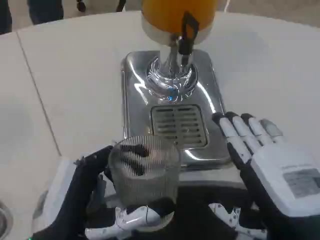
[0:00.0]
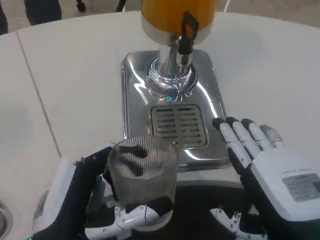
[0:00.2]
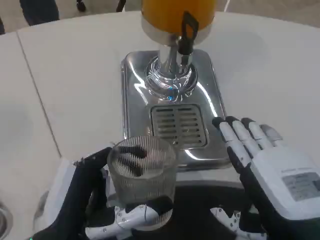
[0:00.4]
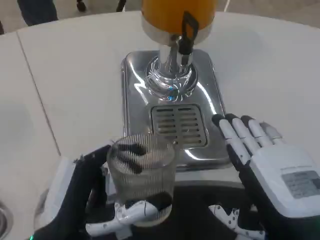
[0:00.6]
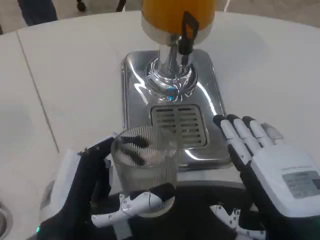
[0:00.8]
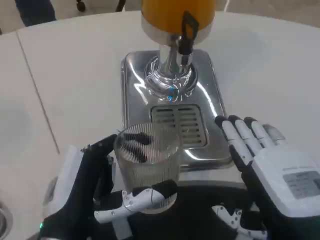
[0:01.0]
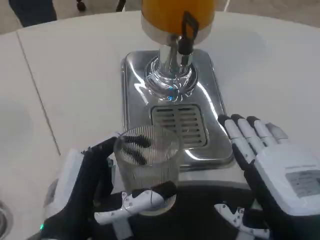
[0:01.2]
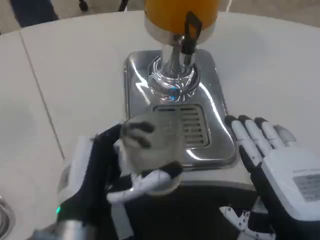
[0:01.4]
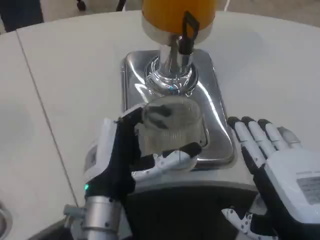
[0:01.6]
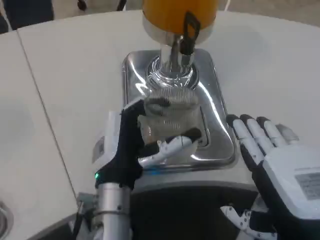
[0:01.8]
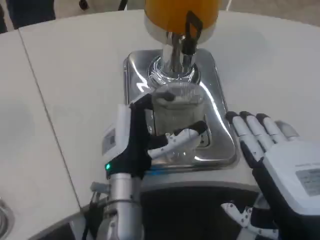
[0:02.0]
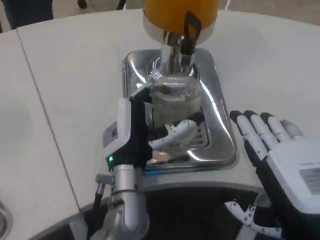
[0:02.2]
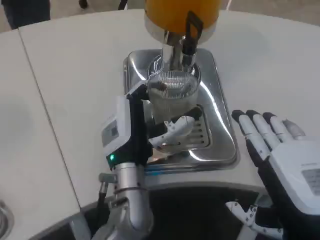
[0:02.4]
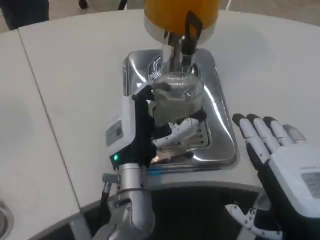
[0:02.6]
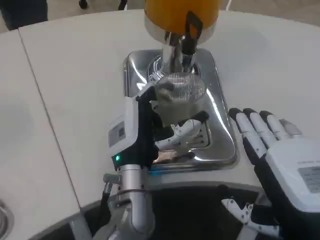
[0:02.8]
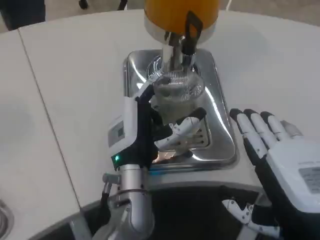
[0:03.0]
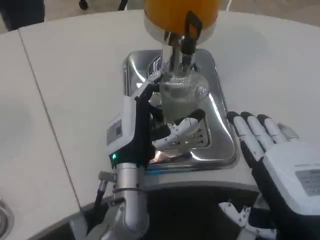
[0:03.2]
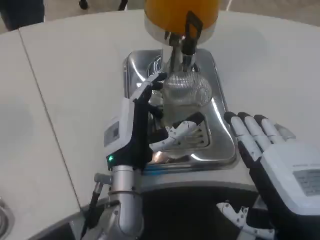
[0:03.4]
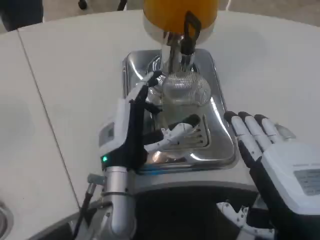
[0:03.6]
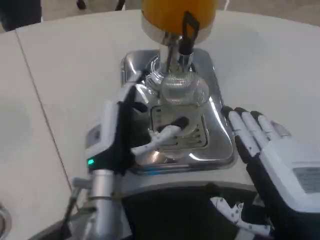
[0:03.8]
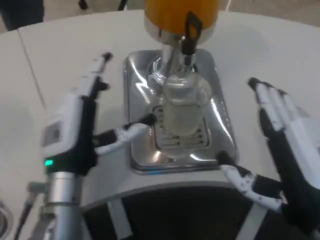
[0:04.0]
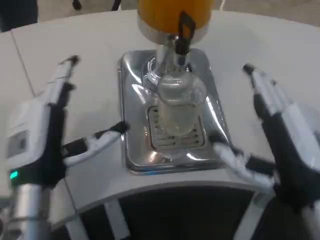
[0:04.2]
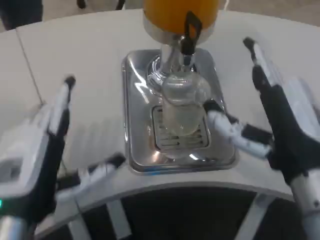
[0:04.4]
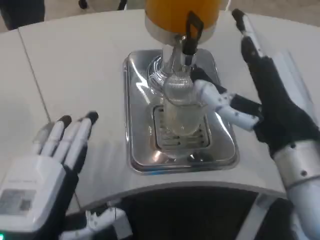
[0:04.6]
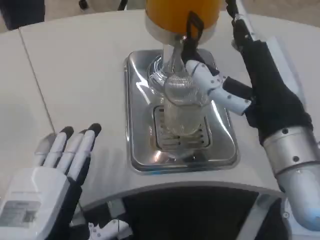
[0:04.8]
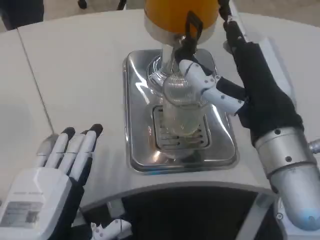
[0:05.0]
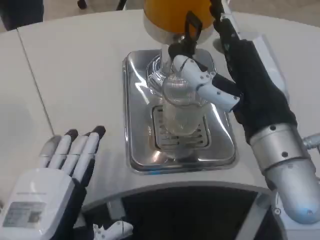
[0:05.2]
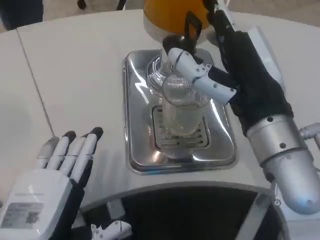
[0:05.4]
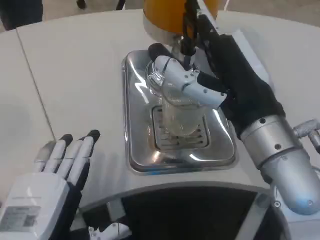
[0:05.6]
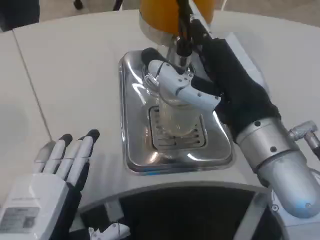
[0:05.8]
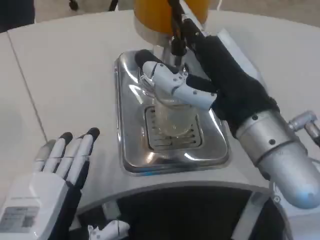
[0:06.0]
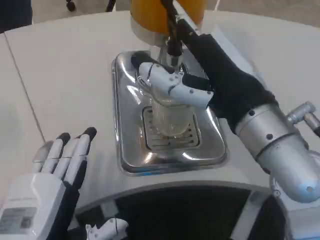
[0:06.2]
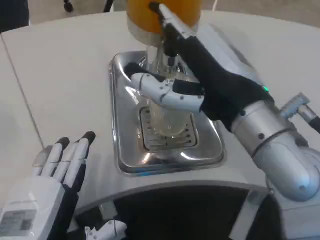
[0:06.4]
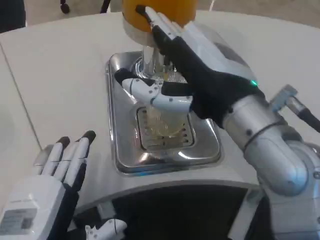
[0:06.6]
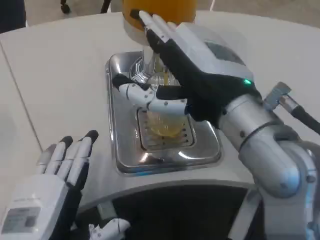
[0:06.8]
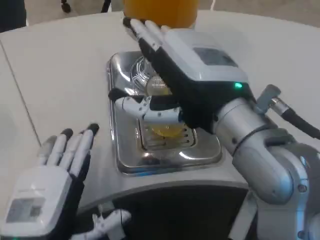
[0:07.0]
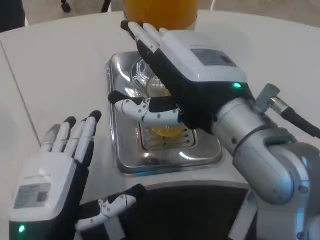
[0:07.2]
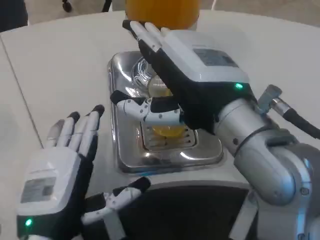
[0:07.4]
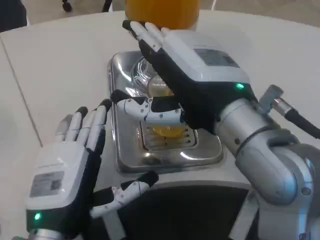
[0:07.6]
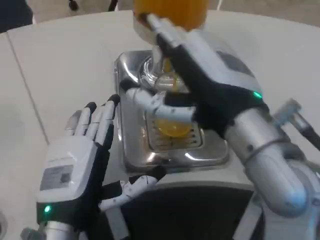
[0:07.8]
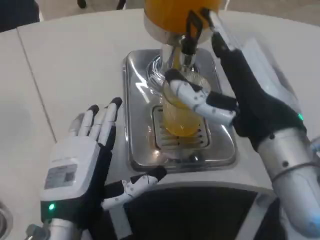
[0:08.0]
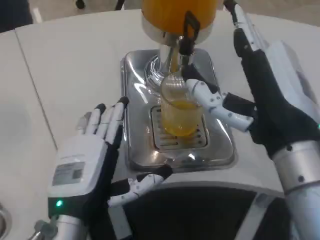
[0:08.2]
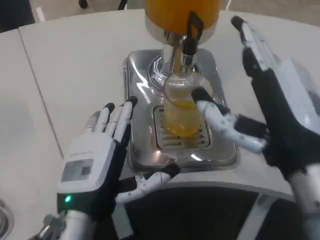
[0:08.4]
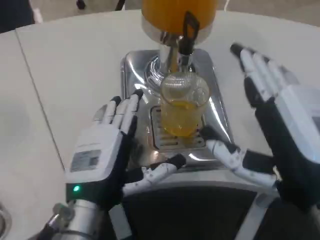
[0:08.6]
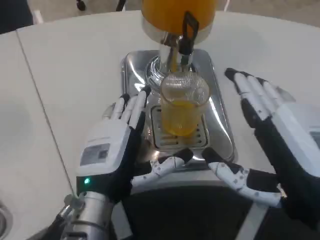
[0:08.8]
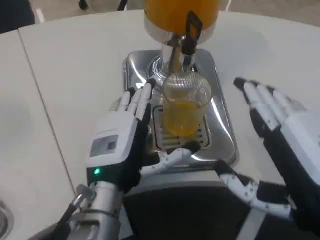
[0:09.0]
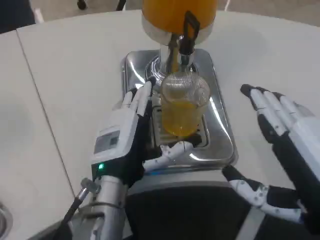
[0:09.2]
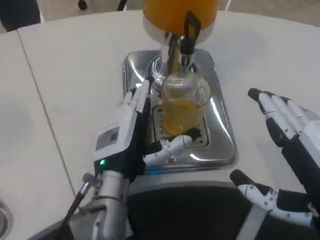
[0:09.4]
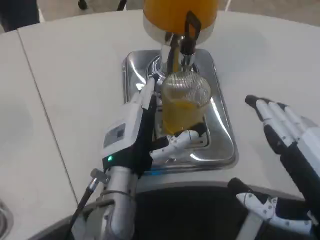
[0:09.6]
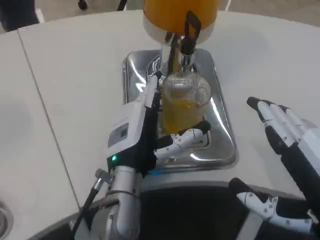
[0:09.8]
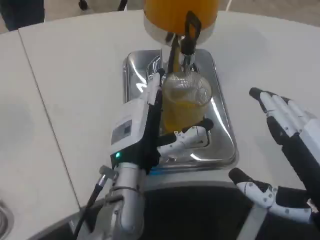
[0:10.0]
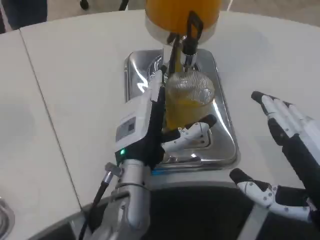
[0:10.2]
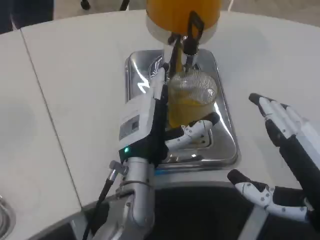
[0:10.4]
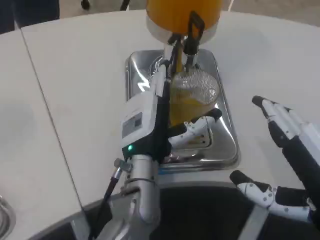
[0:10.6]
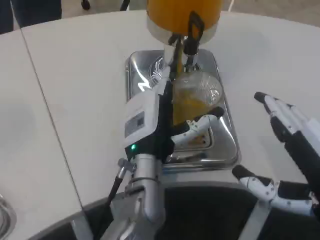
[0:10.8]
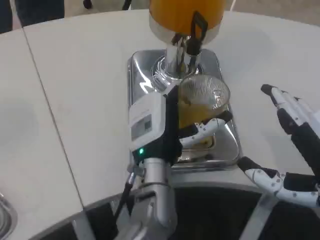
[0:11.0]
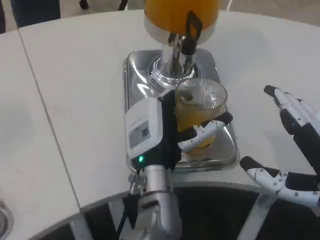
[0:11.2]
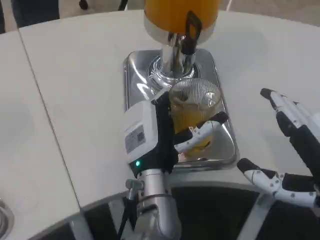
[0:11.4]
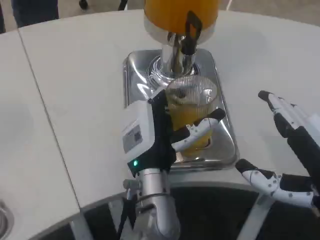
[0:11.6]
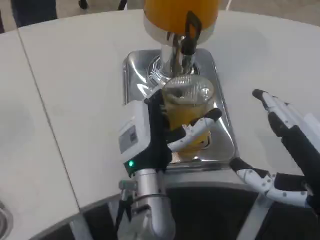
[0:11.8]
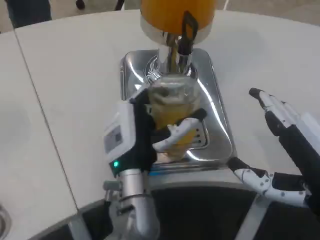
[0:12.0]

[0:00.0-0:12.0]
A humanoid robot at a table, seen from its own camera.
Task of the whole recording: Grasp the cup under the faucet to collect the drink, then remove the cup.
0:00.0 to 0:01.6: The left hand heads forward and to the right, covering roughly 10 cm.
0:01.6 to 0:03.0: The left hand travels forward by about 5 cm.
0:03.0 to 0:04.4: The left hand moves to the left and backward, roughly 20 cm; the right hand is displaced forward by roughly 5 cm.
0:04.4 to 0:06.0: The right hand ends up some 5 cm from where it was; the left hand travels backward by some 5 cm.
0:06.0 to 0:07.6: The left hand travels forward by roughly 5 cm.
0:07.6 to 0:09.0: The right hand is displaced backward, to the right and downward by approximately 15 cm, while the left hand heads forward and to the right, covering about 10 cm.
0:09.0 to 0:10.4: The left hand shifts roughly 5 cm to the right.

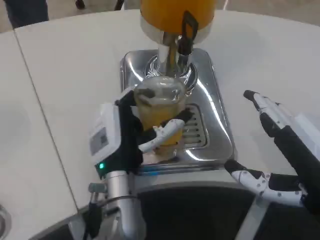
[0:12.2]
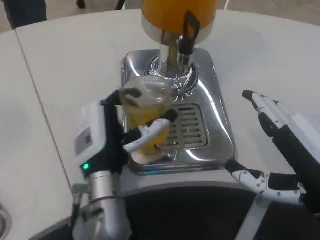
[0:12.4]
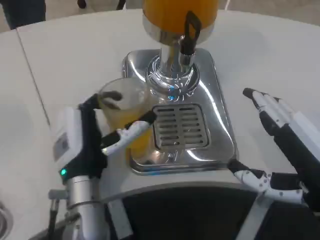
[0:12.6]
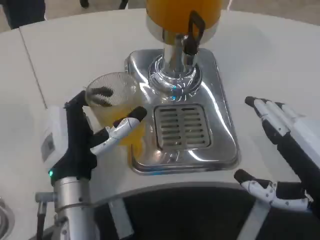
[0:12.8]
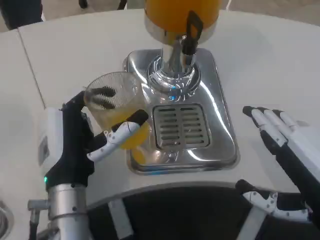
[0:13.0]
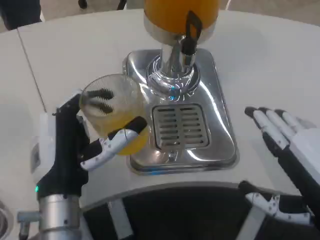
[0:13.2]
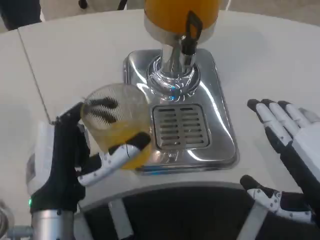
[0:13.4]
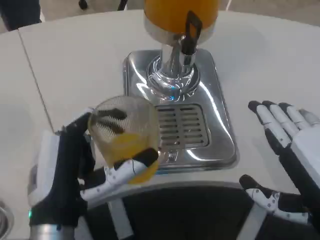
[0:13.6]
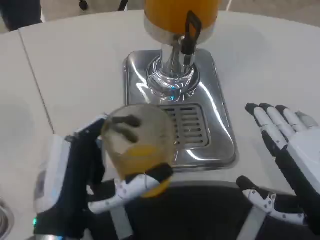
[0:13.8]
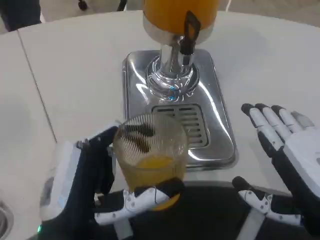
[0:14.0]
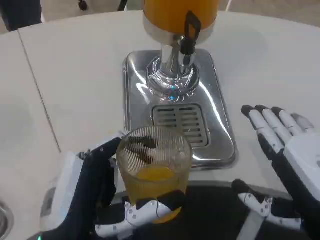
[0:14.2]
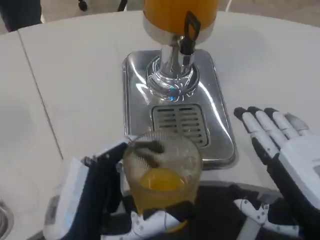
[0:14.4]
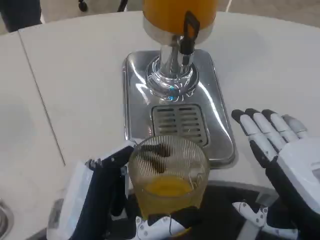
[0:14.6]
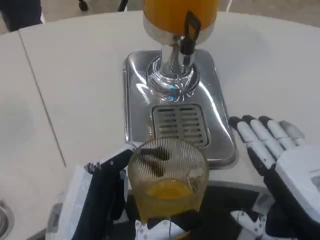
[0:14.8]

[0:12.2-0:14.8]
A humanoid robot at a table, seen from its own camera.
Task of the whole recording: Grasp the cup under the faucet to collect the drink, then remove the cup.
0:12.2 to 0:13.4: The left hand shifts roughly 10 cm backward and to the left.
0:13.4 to 0:14.8: The left hand travels backward by some 10 cm.

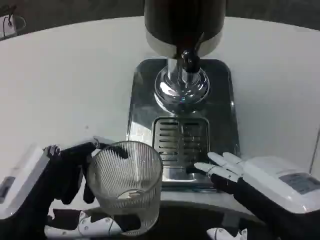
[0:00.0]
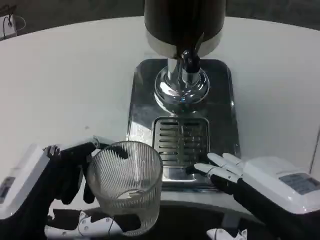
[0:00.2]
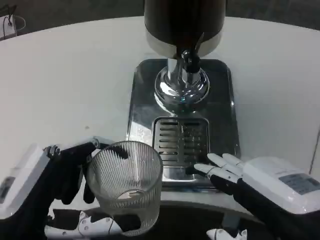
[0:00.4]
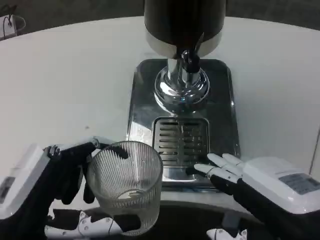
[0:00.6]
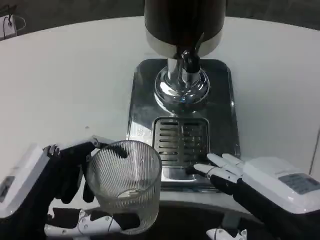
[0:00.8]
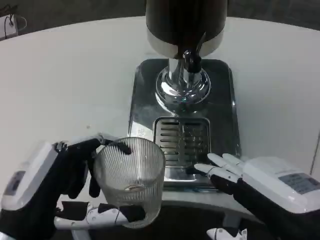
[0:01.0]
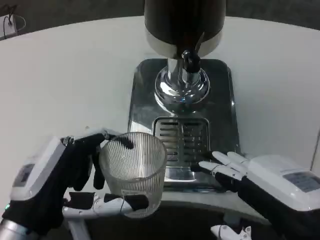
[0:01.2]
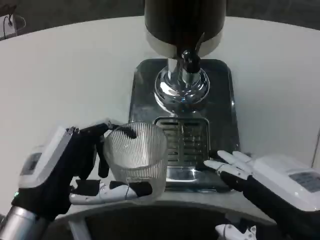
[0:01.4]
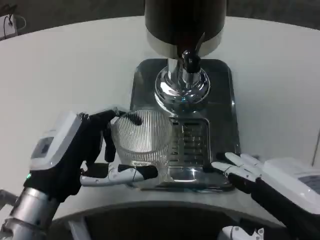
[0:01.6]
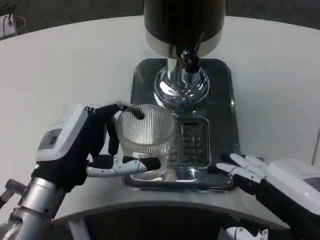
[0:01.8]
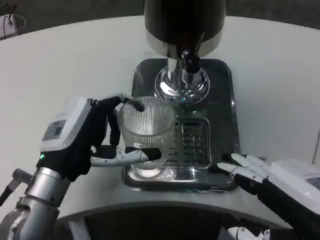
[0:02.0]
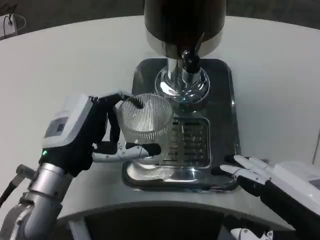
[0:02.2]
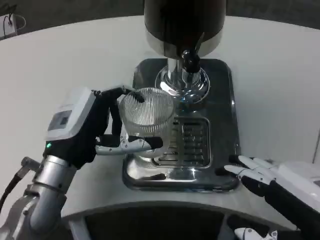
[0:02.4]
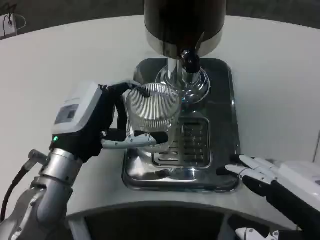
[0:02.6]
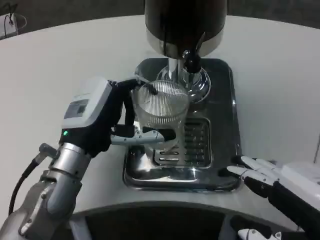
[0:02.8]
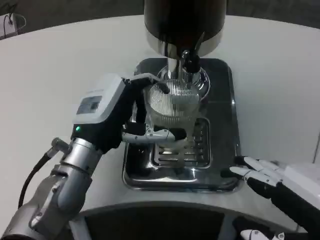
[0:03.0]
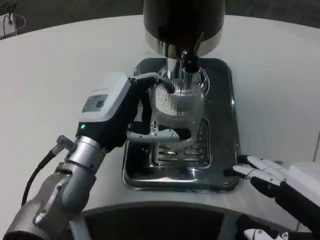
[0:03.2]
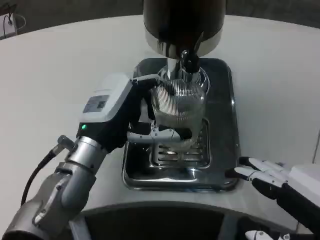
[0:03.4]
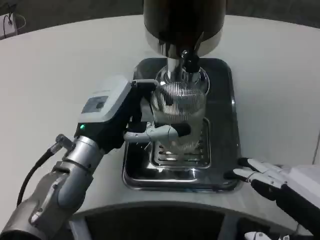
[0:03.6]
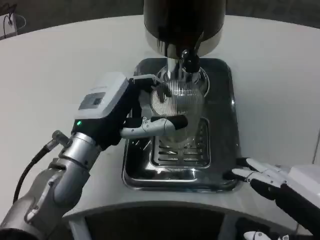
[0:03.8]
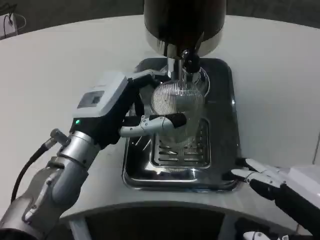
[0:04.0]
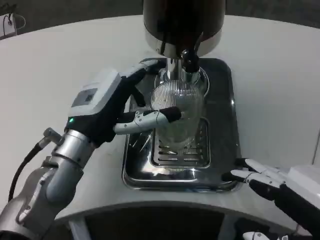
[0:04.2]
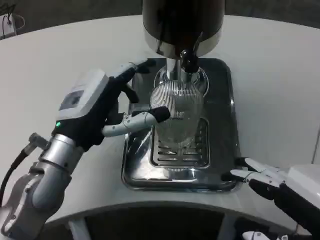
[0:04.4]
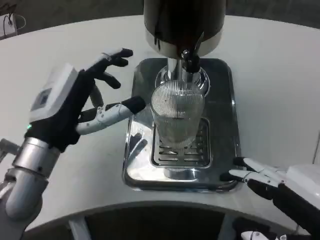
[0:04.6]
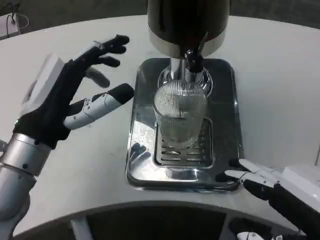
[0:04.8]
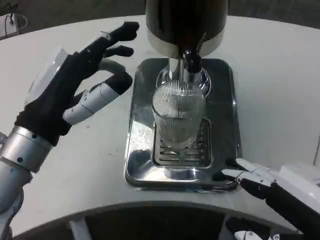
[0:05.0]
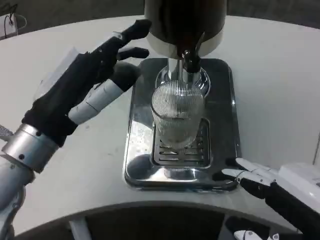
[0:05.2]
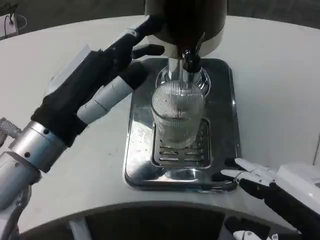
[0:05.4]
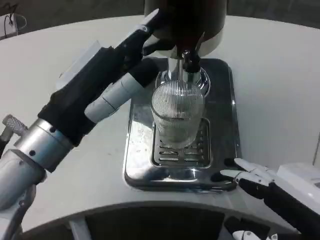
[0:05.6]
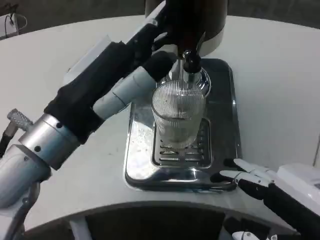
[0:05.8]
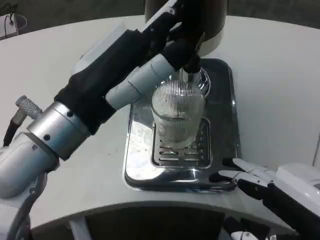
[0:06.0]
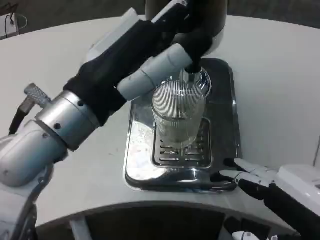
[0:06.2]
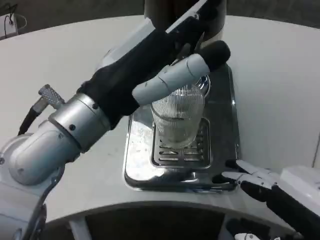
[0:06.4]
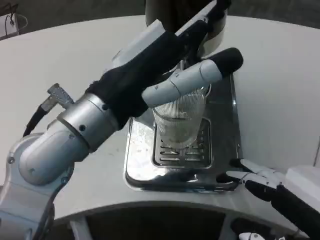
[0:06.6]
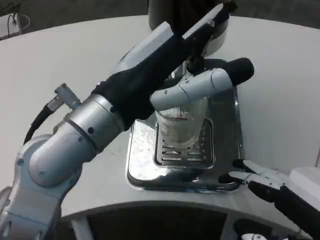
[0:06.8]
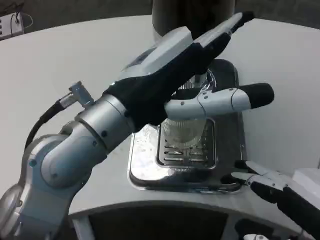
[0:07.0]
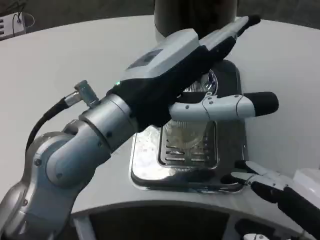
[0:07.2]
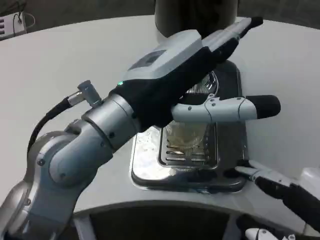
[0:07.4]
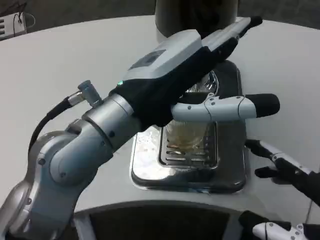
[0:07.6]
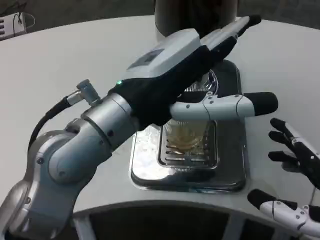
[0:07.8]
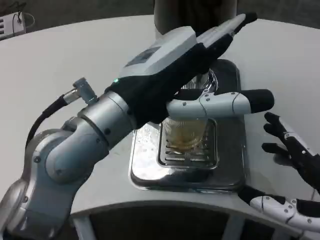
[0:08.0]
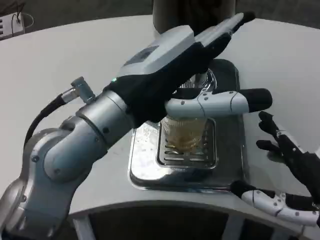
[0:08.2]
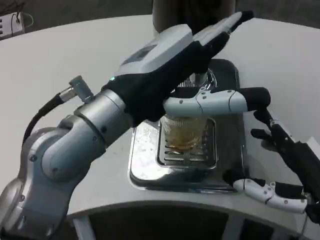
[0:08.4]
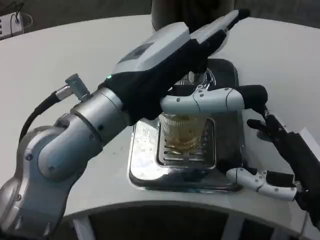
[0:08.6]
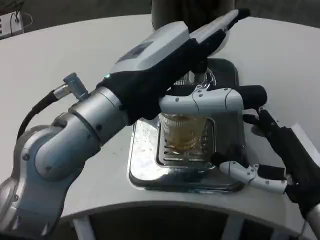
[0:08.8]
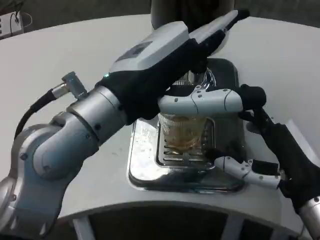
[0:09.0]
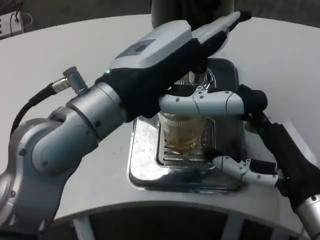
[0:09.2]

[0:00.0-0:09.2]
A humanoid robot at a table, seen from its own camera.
Task of the whole recording: Grasp the cup under the faucet to collect the drink, then remove the cup.
0:00.0 to 0:01.6: The left hand travels forward by about 10 cm.
0:01.6 to 0:03.0: The left hand heads forward, covering roughly 5 cm.
0:03.0 to 0:04.6: The left hand shifts by roughly 5 cm.
0:04.6 to 0:06.2: The left hand travels upward, backward and to the right by some 15 cm.
0:07.6 to 0:09.2: The right hand moves forward, about 10 cm.
